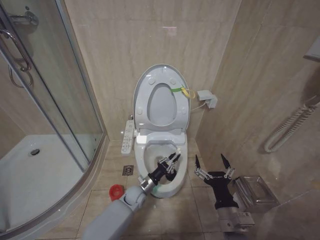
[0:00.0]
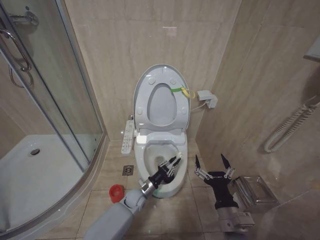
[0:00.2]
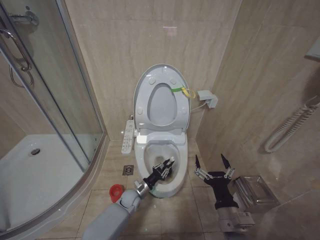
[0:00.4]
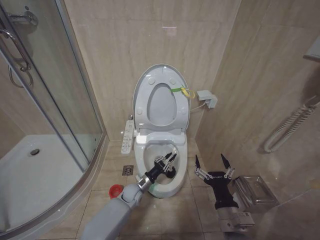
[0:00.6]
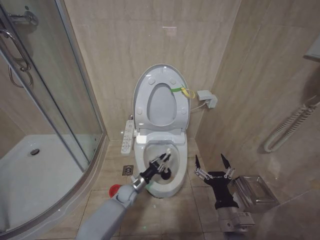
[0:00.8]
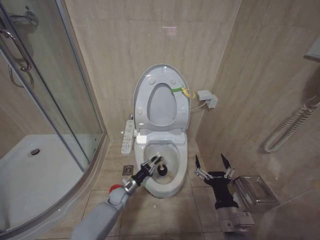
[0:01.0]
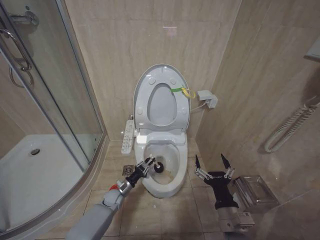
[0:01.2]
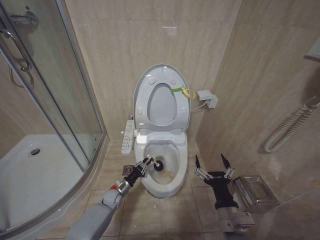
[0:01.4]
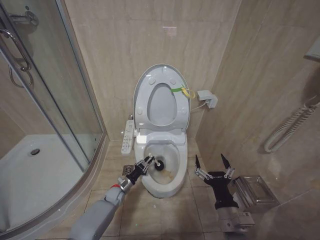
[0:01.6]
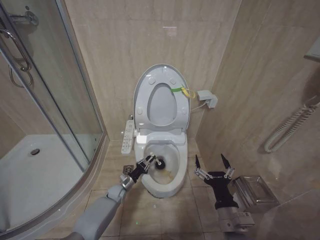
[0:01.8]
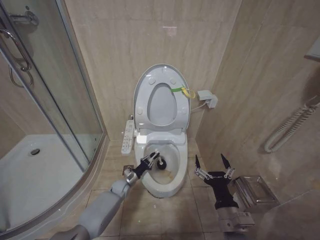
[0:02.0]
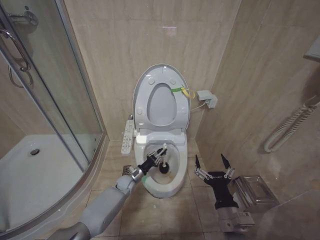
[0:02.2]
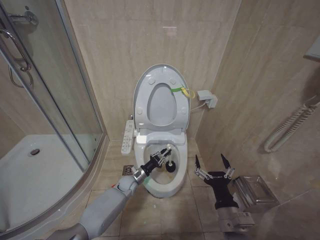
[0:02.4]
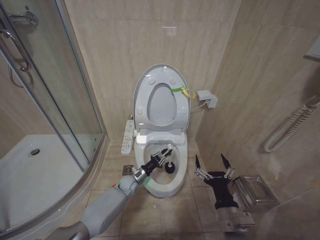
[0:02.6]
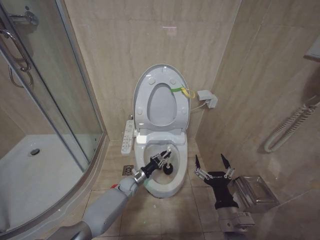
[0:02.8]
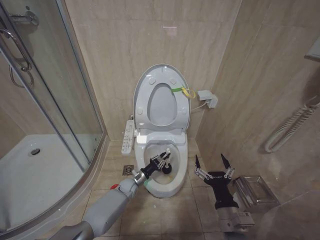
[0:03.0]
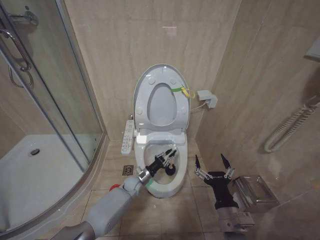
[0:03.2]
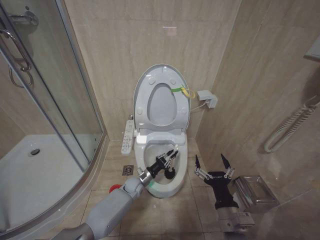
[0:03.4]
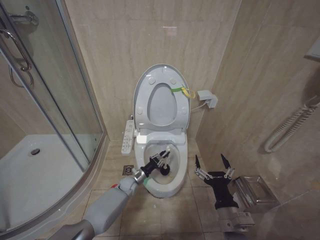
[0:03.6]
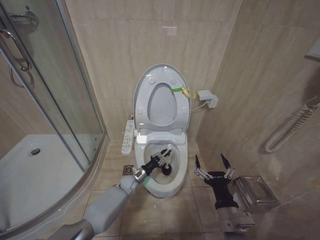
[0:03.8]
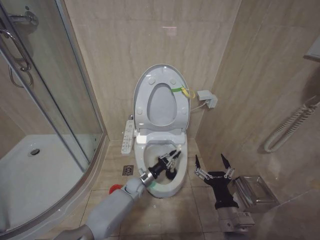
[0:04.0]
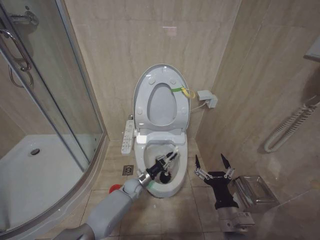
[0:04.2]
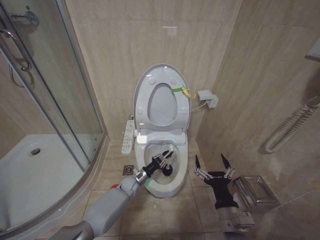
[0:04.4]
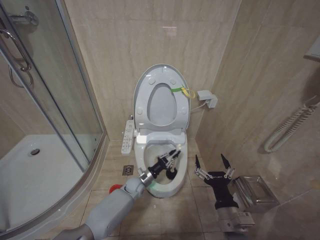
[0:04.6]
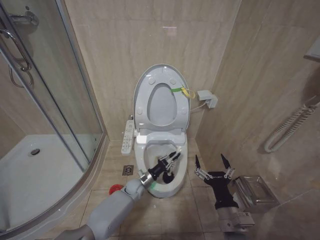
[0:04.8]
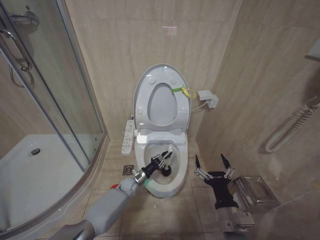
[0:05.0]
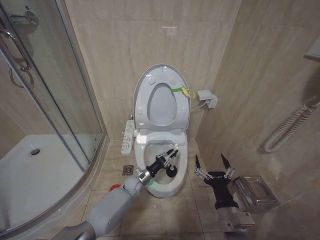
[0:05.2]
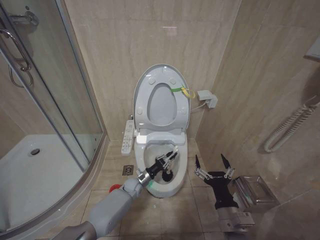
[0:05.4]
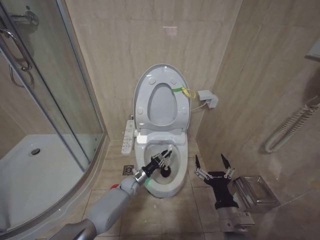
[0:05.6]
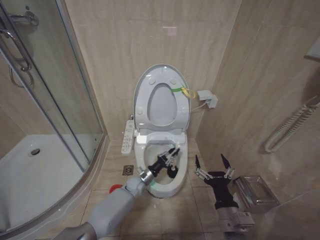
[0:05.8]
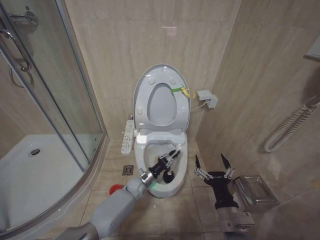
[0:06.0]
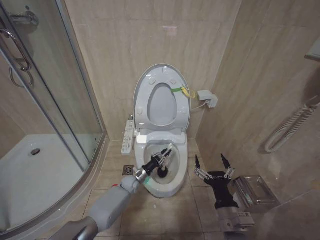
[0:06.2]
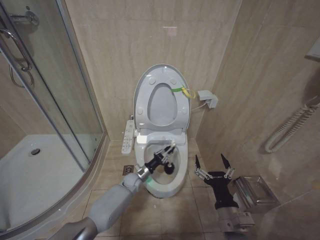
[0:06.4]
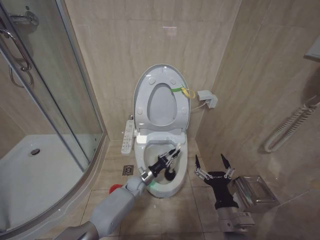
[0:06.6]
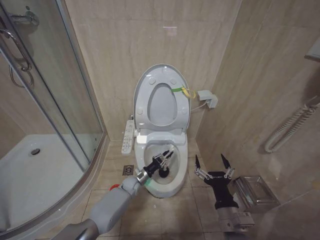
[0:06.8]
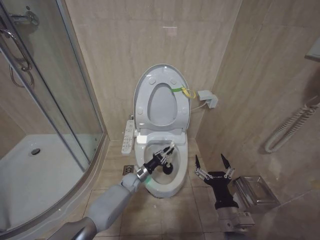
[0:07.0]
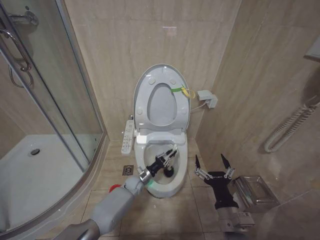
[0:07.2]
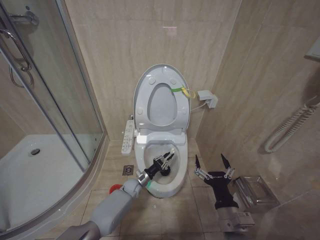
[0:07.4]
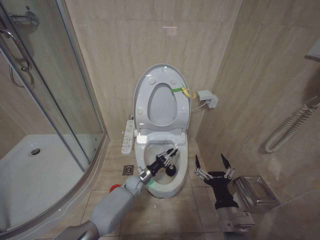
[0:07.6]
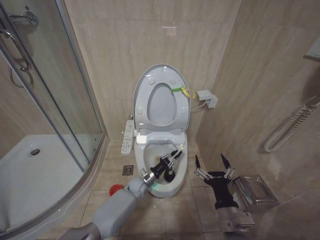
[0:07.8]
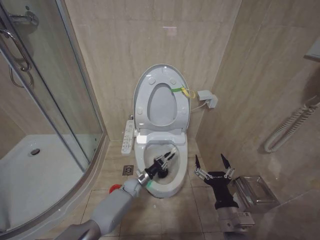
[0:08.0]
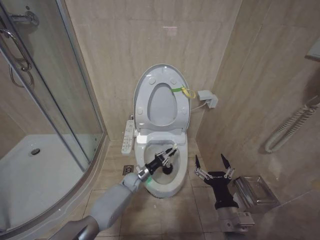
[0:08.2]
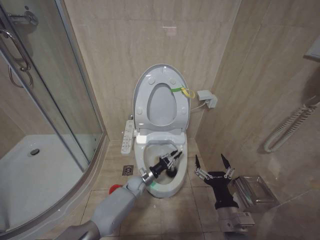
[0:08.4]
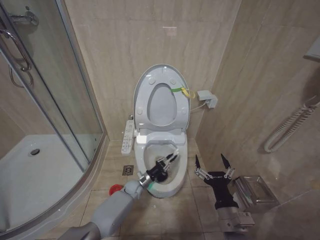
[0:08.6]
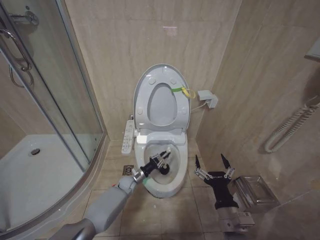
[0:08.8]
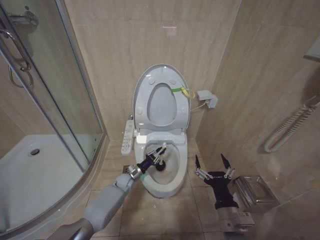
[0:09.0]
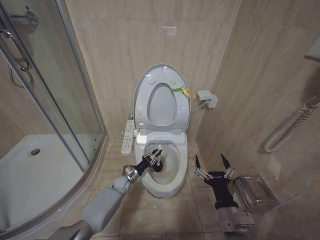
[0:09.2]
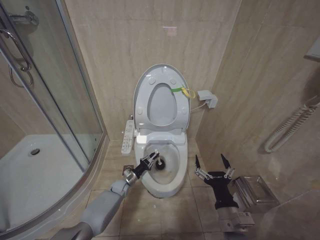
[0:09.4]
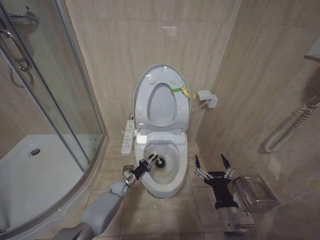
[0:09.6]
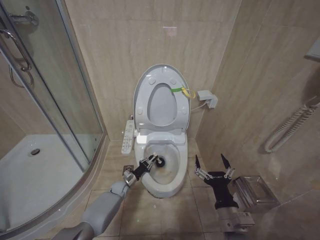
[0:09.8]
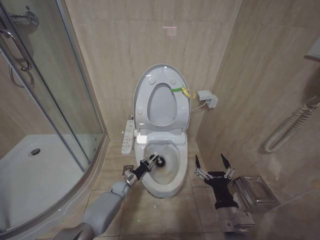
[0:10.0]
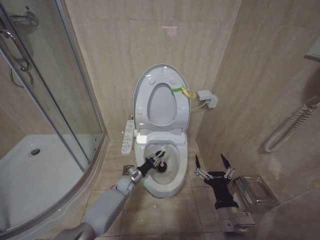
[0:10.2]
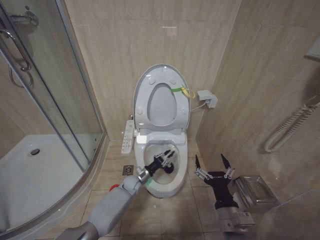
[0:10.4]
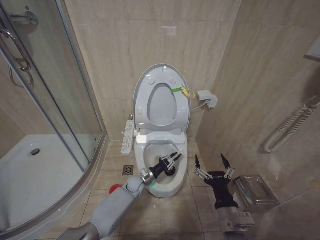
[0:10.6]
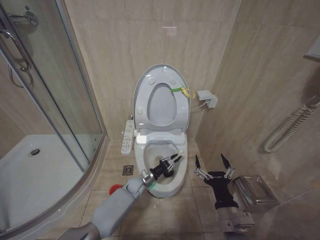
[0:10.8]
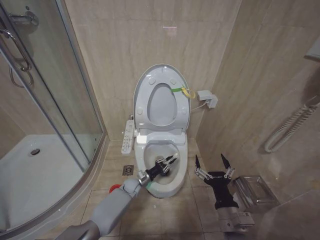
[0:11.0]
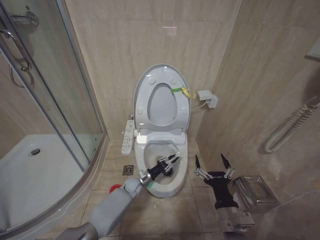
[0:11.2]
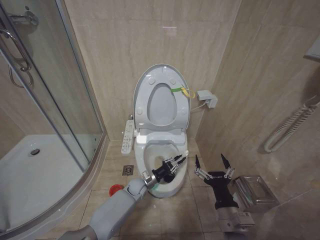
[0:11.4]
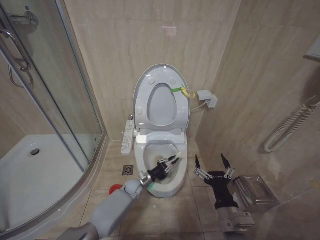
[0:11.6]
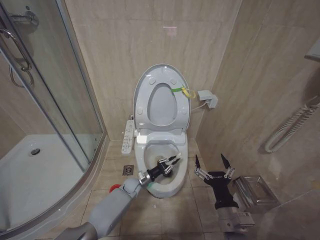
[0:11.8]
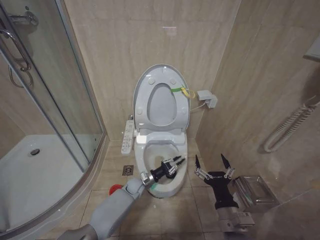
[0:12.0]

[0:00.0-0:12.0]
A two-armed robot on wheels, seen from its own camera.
Task of the whole recording: Open the toilet lid, clean the toilet bowl with a toilet brush, close the toilet lid, and flush.
0:00.0 to 0:01.6: The left gripper travels to the left and downward by approximately 15 cm.
0:01.6 to 0:03.0: The left gripper heads to the right, covering about 5 cm.
0:04.4 to 0:06.0: The left gripper goes left and right, about 5 cm each way, reversing 2 times.
0:07.6 to 0:09.0: The grippers stay close to where they were, moving slightly.
0:10.4 to 0:12.0: The grippers make only small movements.

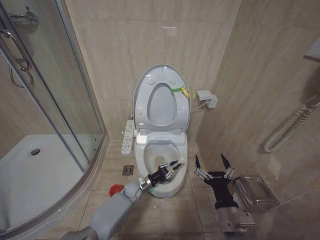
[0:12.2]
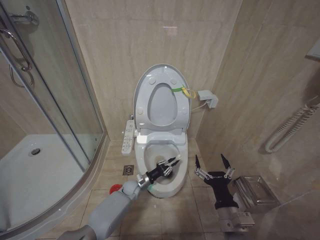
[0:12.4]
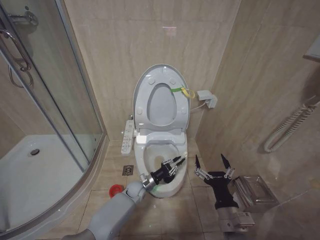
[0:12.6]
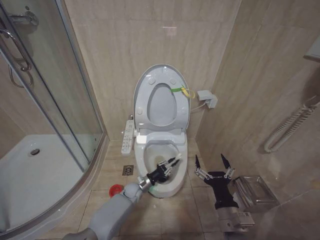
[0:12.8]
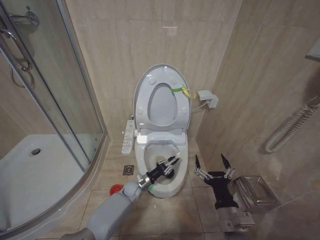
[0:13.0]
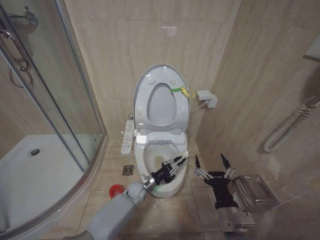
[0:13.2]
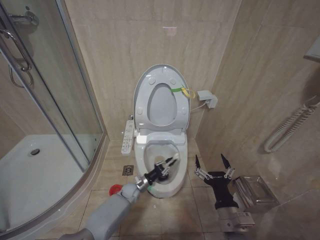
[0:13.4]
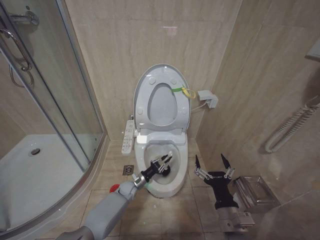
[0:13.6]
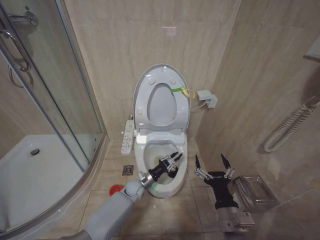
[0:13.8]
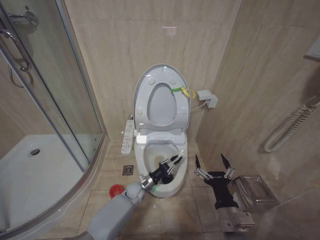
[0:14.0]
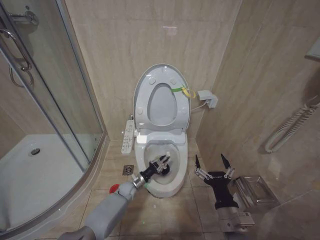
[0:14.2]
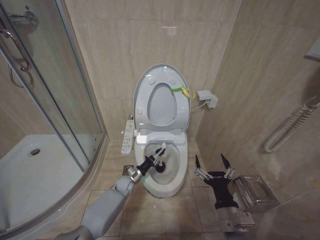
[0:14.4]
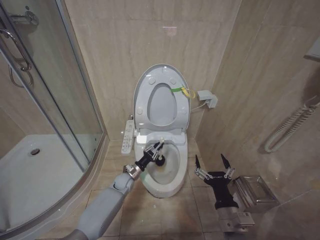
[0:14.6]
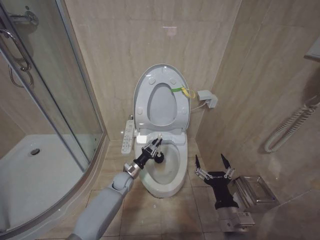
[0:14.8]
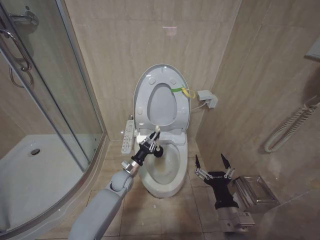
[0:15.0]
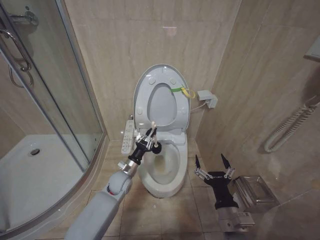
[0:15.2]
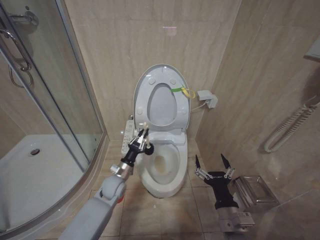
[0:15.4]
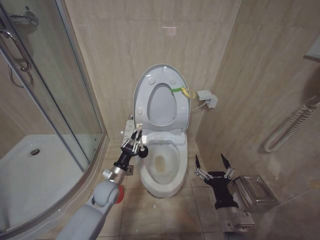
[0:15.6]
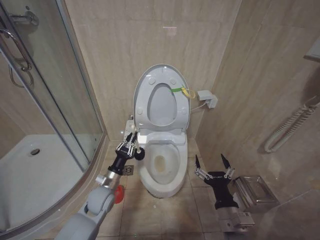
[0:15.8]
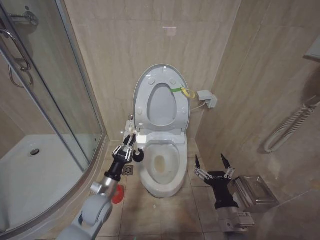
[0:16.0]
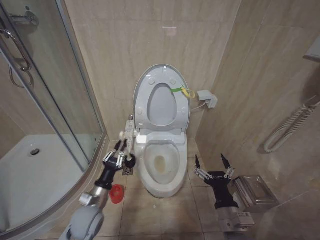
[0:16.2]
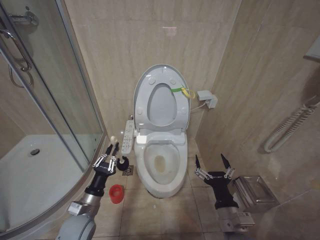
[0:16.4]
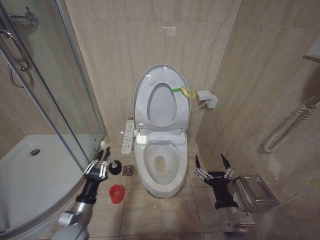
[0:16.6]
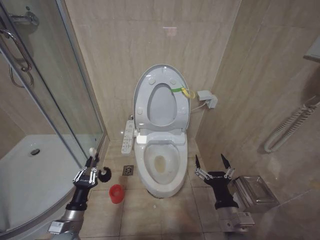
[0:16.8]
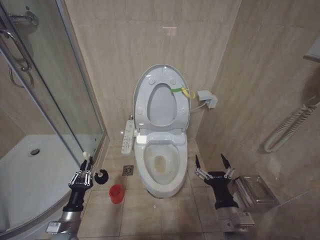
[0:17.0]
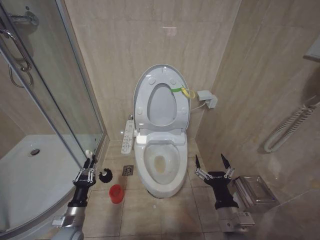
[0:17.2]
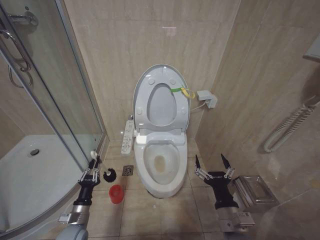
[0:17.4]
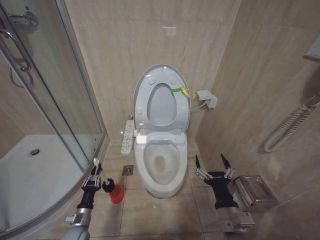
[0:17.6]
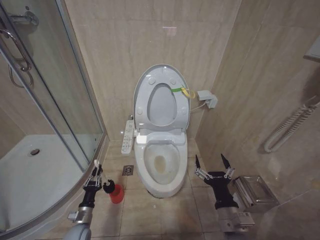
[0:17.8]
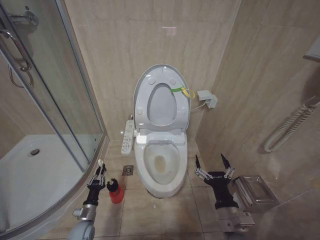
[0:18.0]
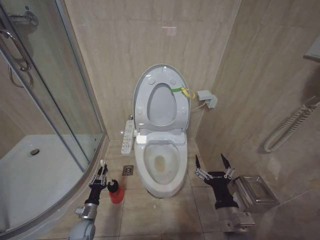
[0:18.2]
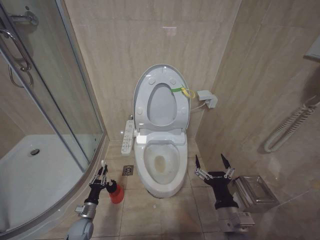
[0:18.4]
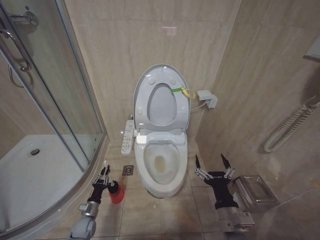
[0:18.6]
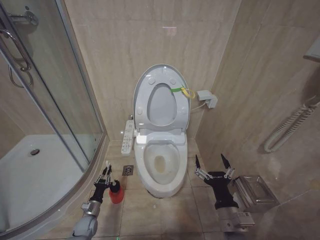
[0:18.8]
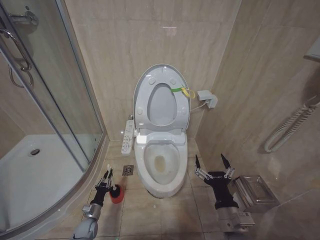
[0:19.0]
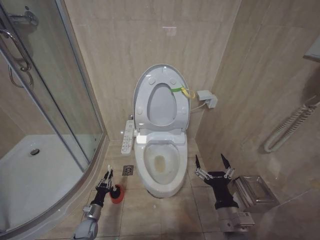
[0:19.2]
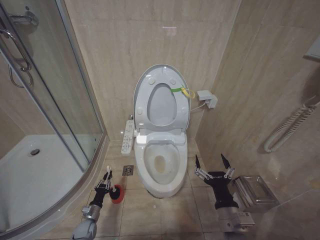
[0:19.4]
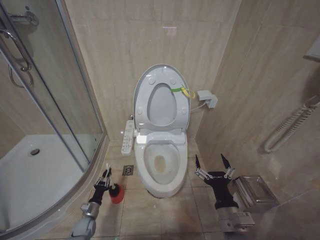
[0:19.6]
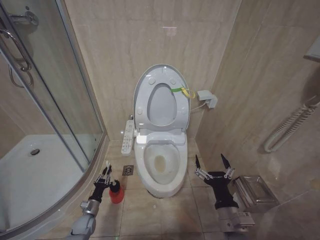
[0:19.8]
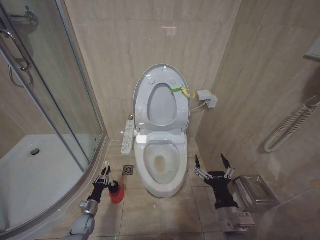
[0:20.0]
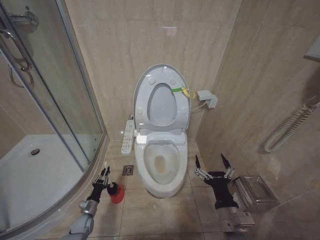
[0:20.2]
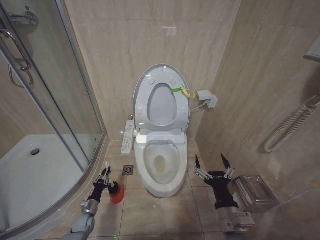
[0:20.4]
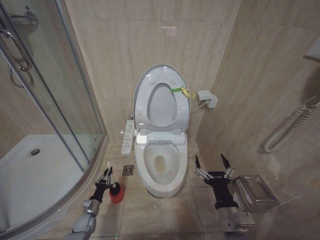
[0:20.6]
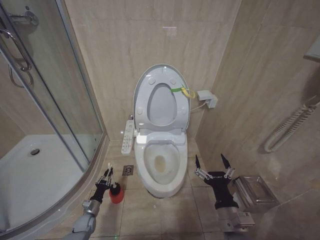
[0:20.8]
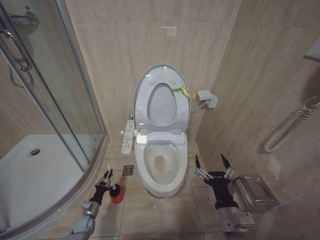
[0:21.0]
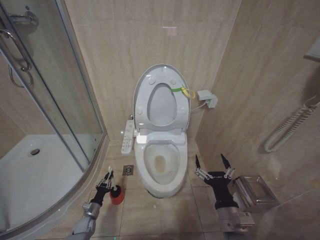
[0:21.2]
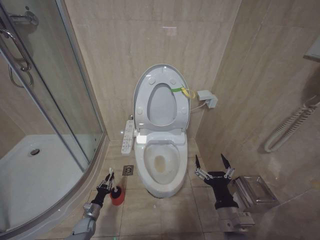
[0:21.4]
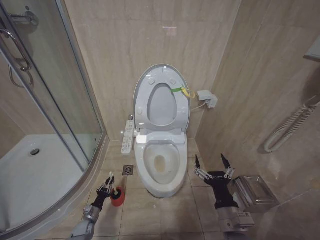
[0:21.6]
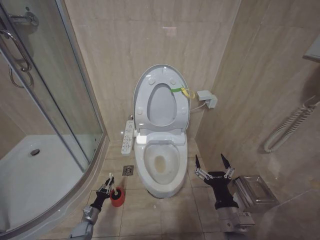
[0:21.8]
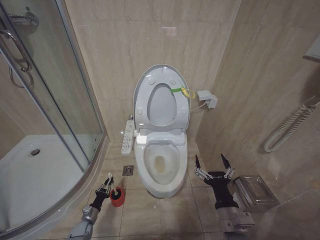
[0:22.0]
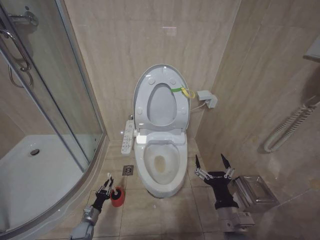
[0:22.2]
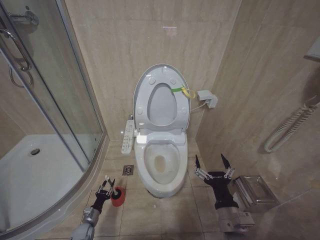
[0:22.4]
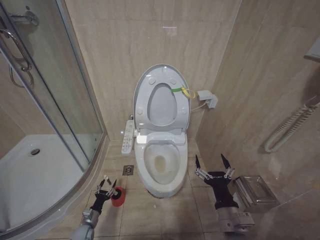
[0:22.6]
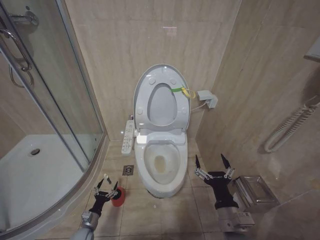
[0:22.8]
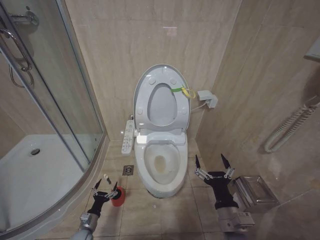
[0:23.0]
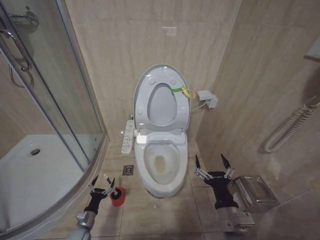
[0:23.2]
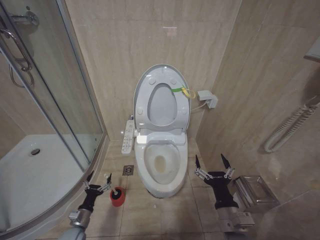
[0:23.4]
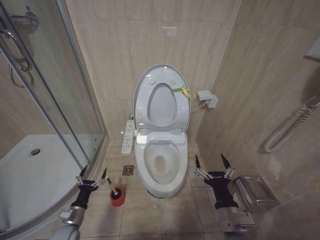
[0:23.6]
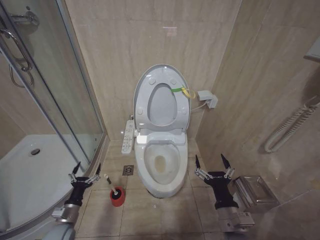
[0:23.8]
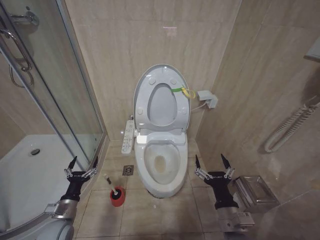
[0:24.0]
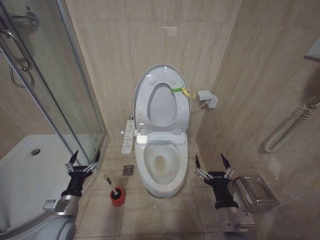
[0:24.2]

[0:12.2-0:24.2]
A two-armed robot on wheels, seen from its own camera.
Task of the whole recording: Open the toilet lid, clean the toilet bowl with a toilet brush, close the toilet lid, and flush.
0:12.2 to 0:13.8: The grippers move only a little.
0:13.8 to 0:15.2: The left gripper heads upward, covering some 10 cm.
0:15.2 to 0:16.6: The left gripper heads backward and to the left, covering some 20 cm.
0:16.6 to 0:18.2: The left gripper shifts about 20 cm downward.
0:18.2 to 0:19.8: The left gripper ends up about 5 cm from where it was.
0:21.2 to 0:22.6: The grippers stay close to where they were, moving slightly.
0:22.6 to 0:24.2: The left gripper heads upward, covering approximately 25 cm, and opens up.
